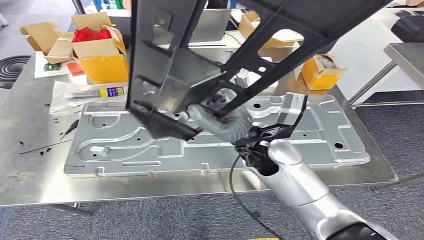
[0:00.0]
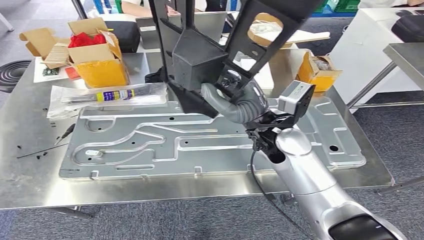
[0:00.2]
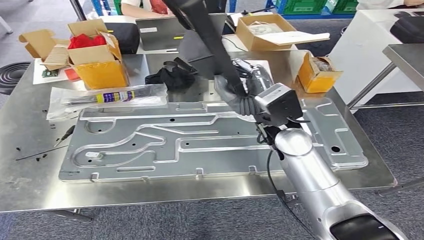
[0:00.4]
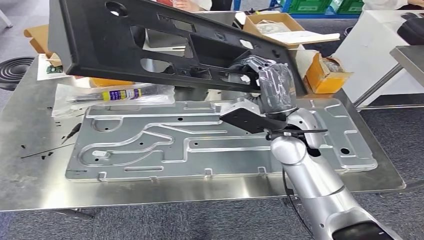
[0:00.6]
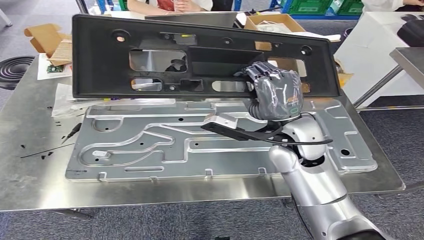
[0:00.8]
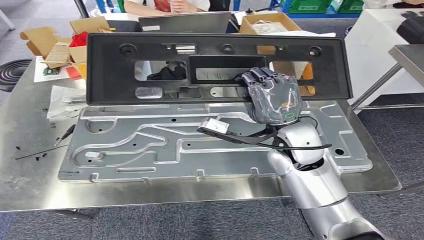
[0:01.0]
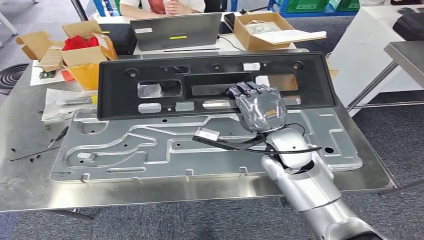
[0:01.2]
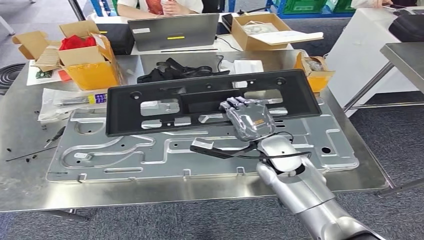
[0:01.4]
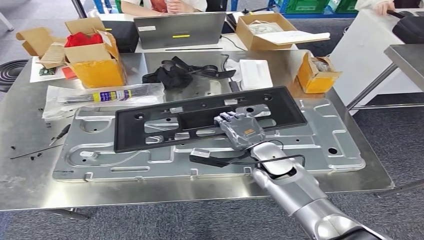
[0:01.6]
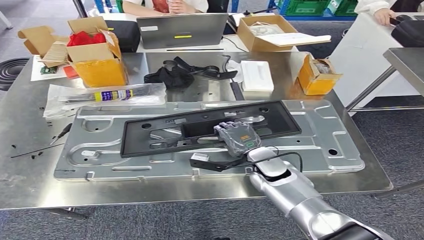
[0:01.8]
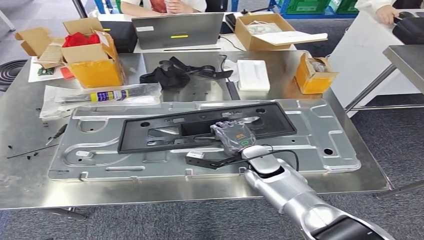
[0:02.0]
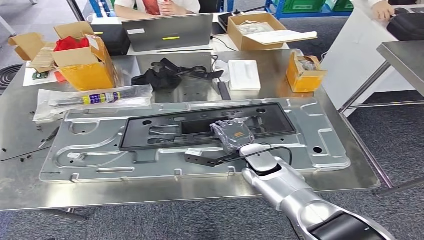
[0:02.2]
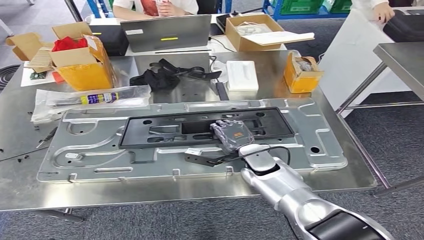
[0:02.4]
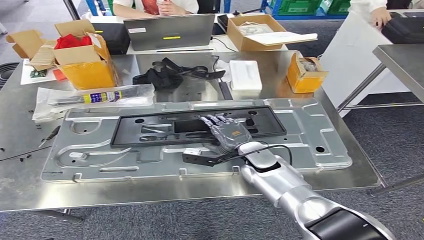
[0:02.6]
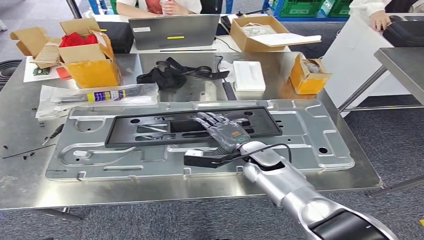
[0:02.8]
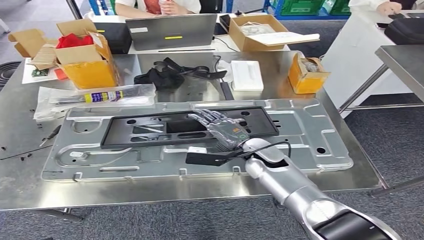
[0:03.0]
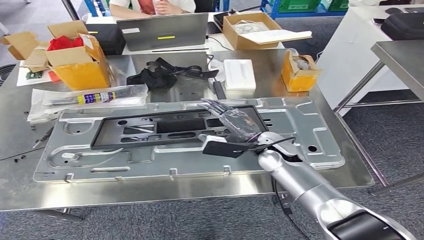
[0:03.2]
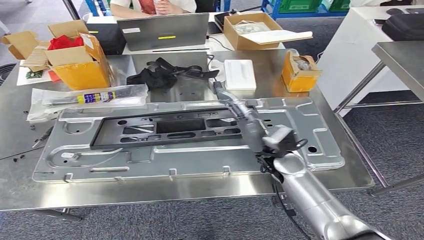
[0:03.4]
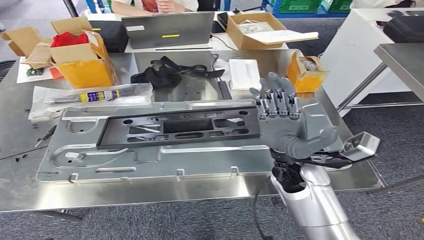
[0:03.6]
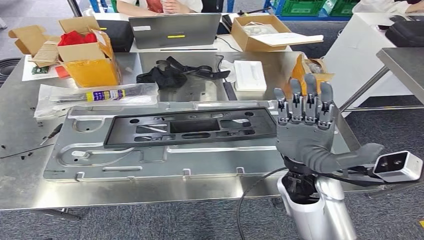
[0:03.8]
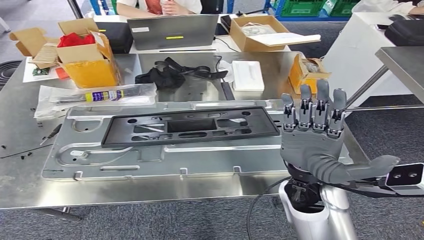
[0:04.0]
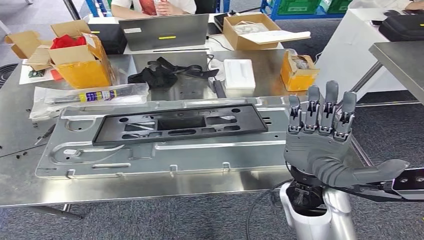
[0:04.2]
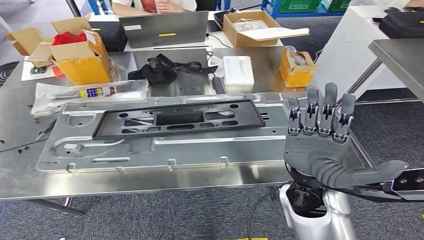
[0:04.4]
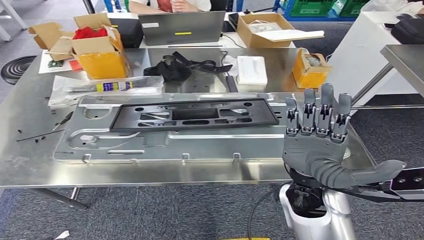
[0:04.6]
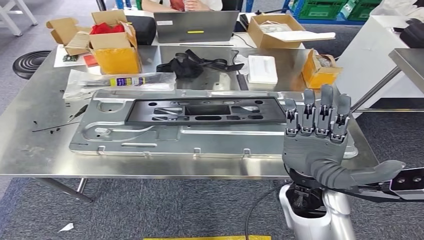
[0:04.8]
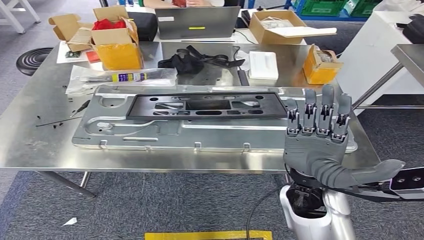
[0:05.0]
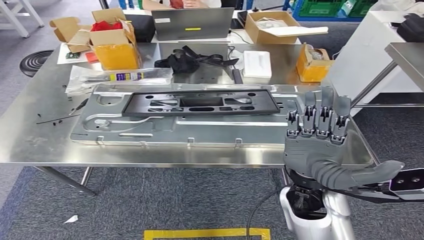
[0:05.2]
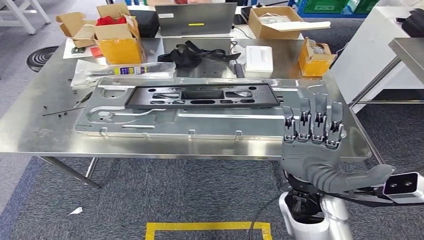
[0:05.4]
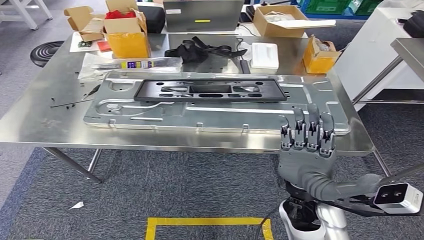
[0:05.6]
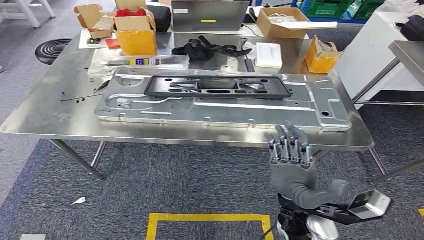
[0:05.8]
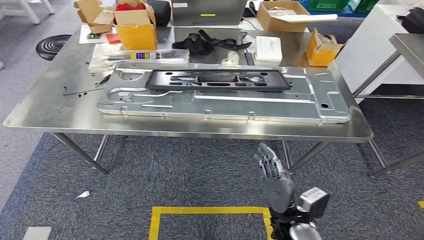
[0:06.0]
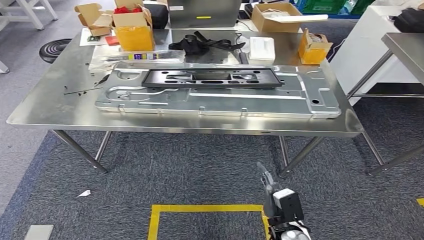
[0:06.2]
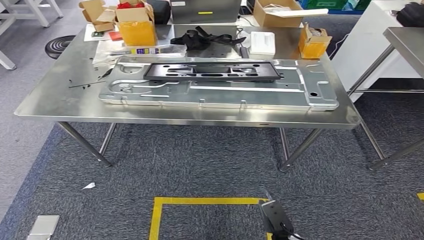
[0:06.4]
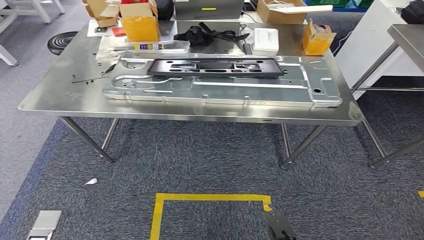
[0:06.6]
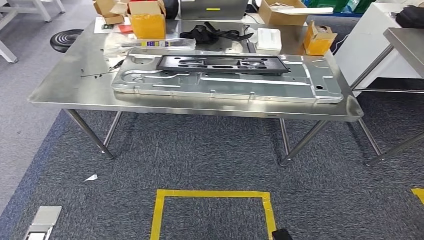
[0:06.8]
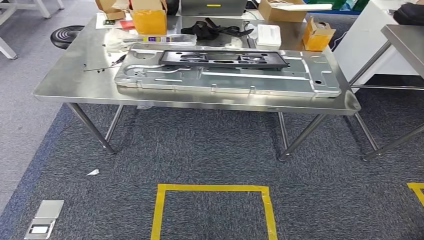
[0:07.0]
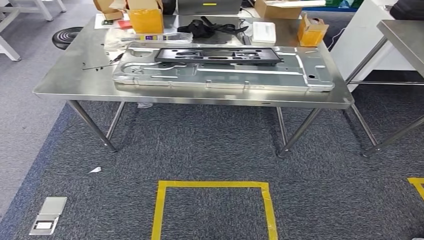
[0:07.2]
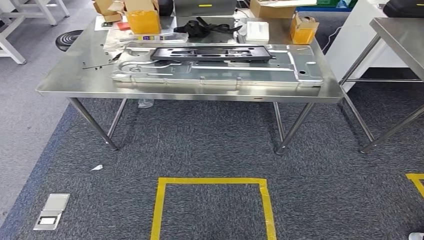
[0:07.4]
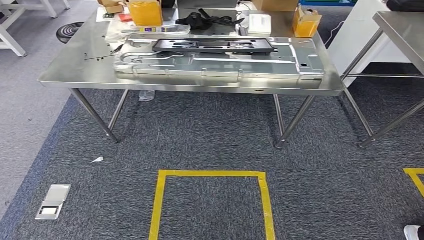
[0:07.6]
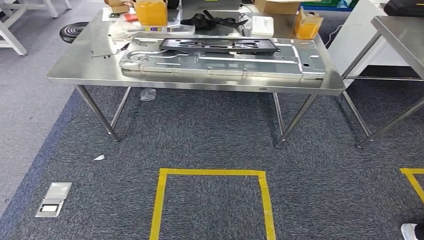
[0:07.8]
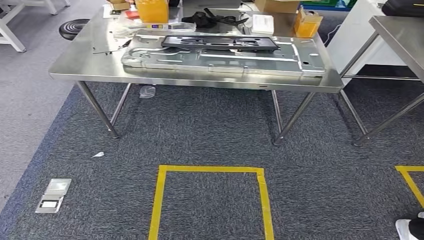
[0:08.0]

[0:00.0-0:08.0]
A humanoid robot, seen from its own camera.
Step, 0:00.0 to 0:03.2: Insert the small parts into the corresponding slots on the workbench.
Step, 0:03.4 to 0:07.8: Return to the initial position at the workbench.
